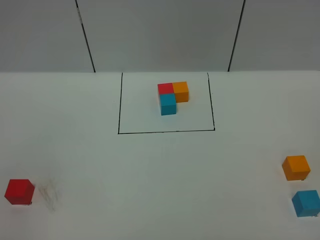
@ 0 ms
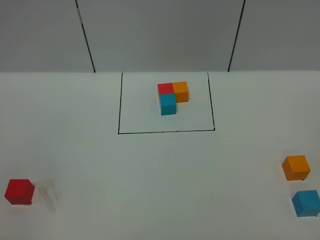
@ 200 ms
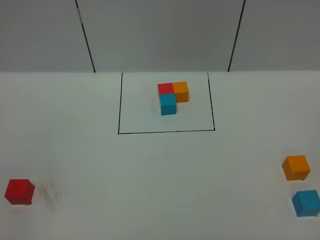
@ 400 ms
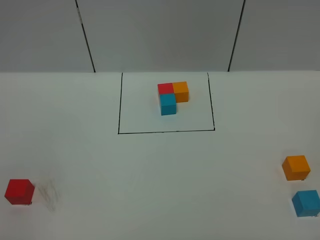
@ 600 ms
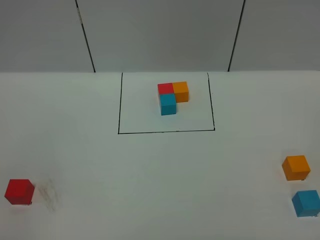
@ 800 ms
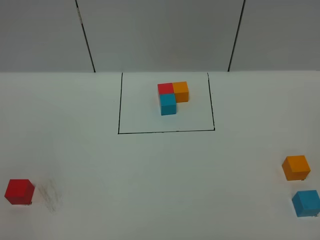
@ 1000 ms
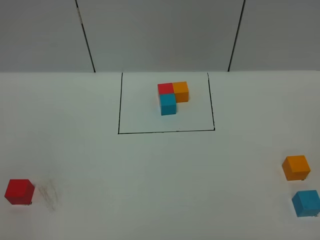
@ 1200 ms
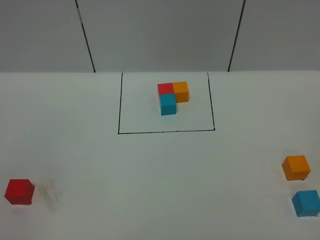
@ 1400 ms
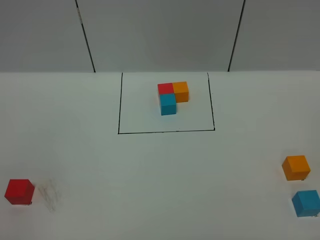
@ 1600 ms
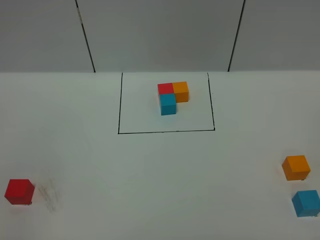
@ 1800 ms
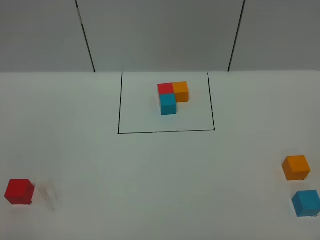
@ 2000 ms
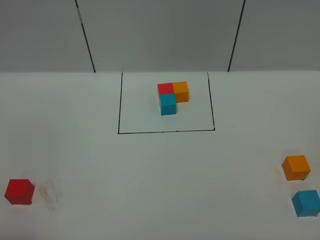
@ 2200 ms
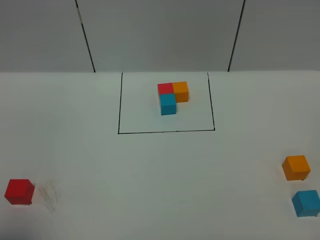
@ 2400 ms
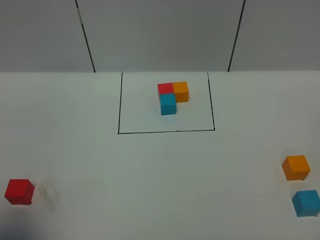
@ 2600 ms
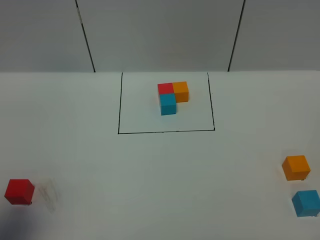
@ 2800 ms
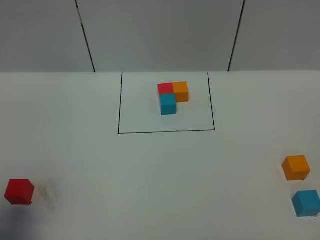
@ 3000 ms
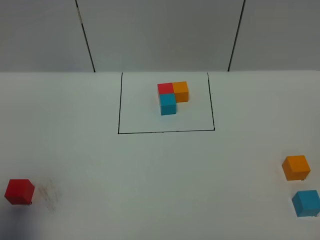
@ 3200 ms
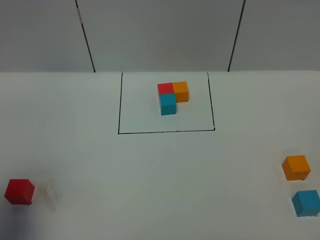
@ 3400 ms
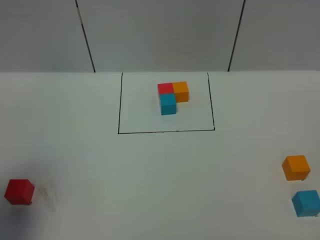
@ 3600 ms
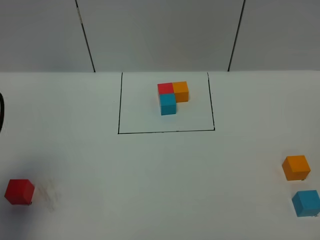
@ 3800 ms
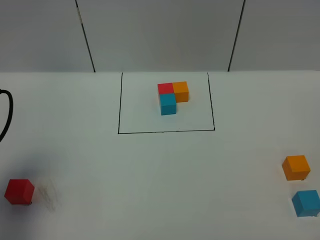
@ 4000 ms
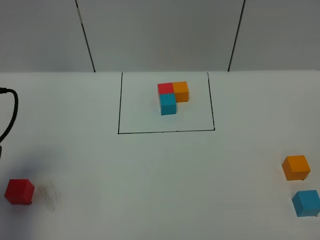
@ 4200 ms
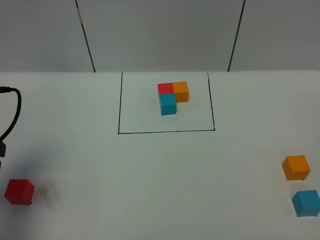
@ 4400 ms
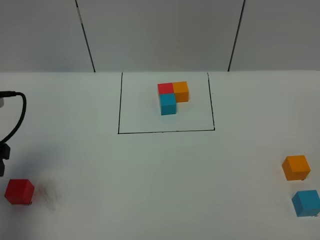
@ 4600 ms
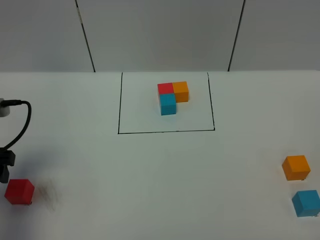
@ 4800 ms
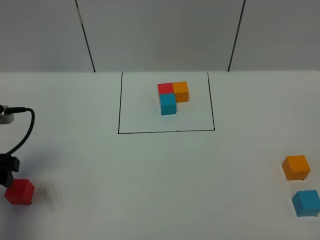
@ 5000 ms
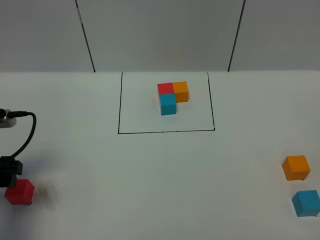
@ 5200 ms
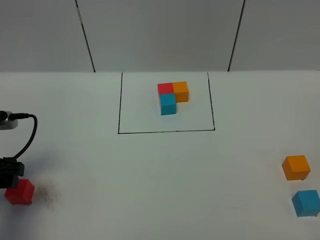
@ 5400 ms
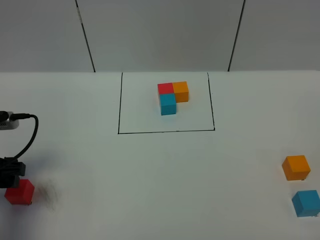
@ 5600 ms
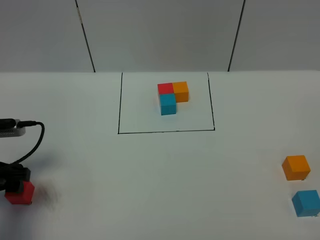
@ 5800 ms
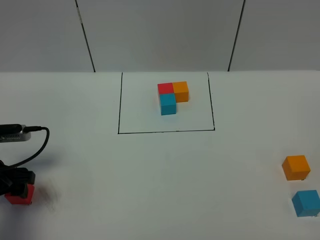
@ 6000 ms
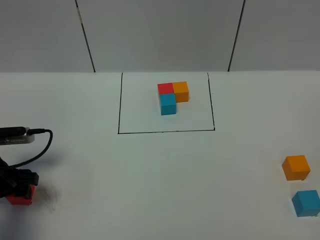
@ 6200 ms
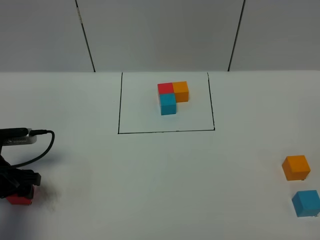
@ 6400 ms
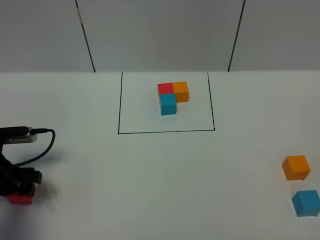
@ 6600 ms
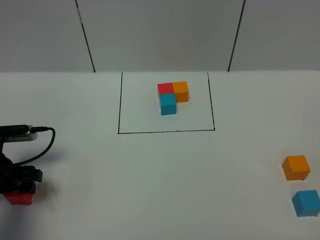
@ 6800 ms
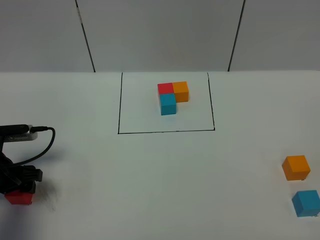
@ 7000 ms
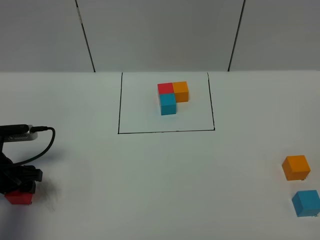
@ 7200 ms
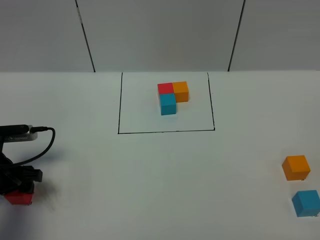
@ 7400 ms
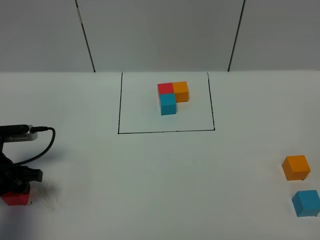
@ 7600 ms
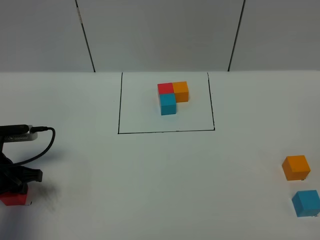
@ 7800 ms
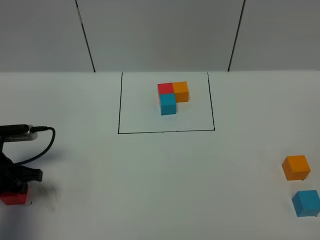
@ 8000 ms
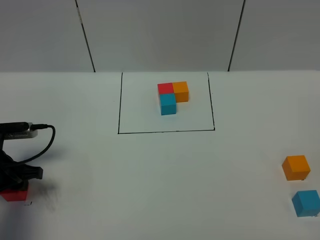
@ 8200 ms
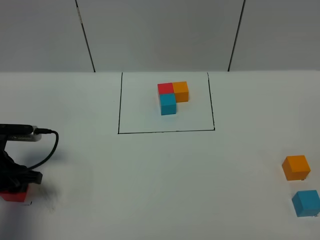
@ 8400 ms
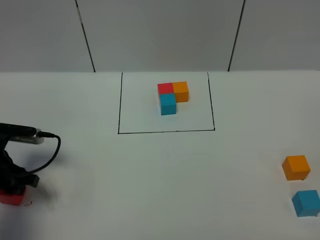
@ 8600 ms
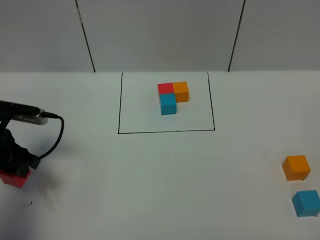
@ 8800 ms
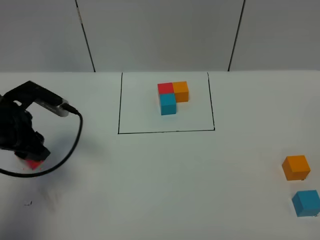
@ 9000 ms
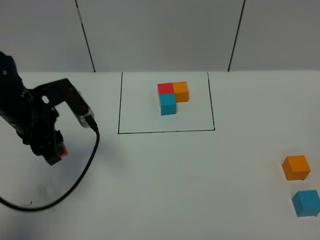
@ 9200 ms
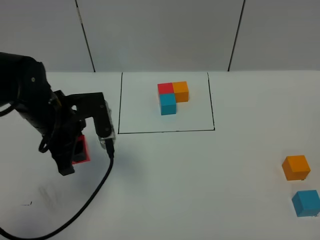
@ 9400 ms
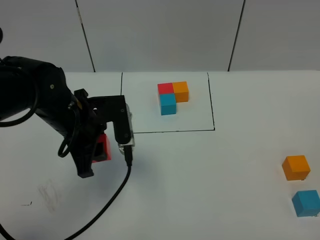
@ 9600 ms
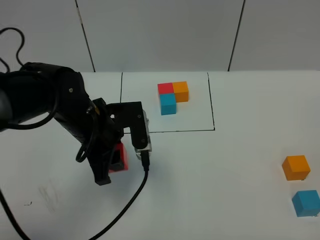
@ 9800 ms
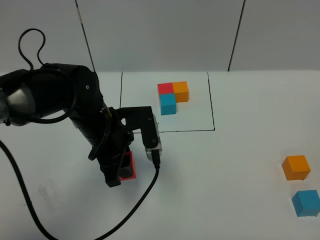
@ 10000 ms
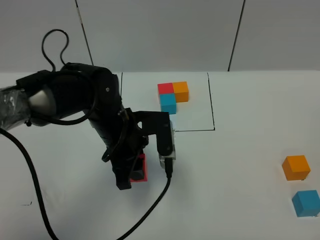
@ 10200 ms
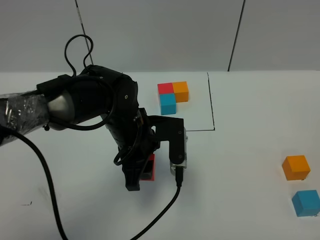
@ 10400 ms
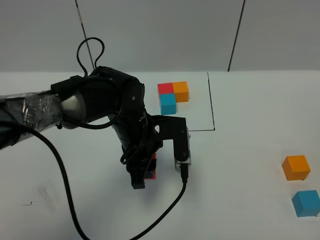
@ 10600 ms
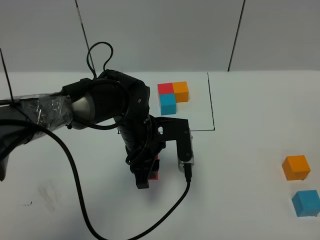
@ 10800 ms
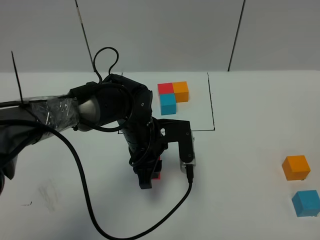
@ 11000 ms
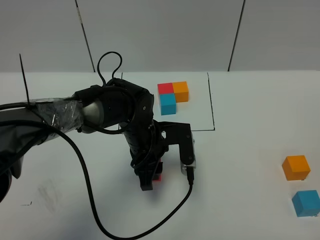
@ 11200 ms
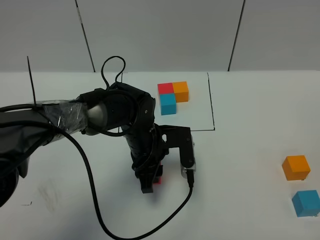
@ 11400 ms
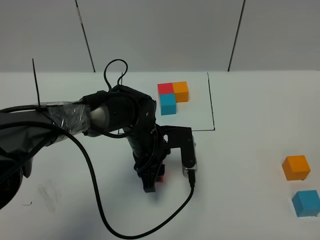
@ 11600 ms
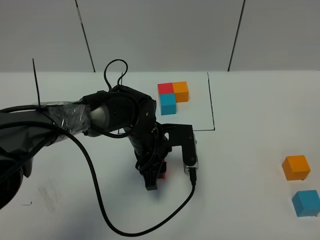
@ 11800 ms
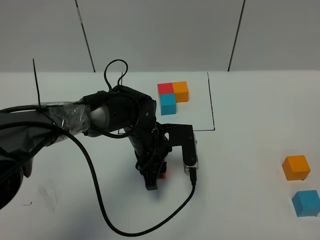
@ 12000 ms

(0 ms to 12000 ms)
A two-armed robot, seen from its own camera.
Task of the whole recording: According to the building block template in front, assemble the scattered blocks together.
0 ms - 1600 ms: Both grippers stay put.
1600 ms - 3000 ms: The left gripper travels forward and upward by approximately 15 cm, and closes.
3000 ms - 4400 ms: The left gripper moves forward and downward, about 15 cm, and opens its fingers.
4400 ms - 6000 ms: The left gripper travels downward by about 10 cm.
6000 ms - 7600 ms: The left gripper closes.
7600 ms - 9000 ms: The left gripper heads upward and forward, covering roughly 10 cm.
9000 ms - 10400 ms: The left gripper travels to the right by roughly 20 cm.
10400 ms - 12000 ms: The left gripper shifts some 5 cm downward.

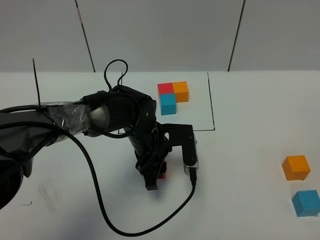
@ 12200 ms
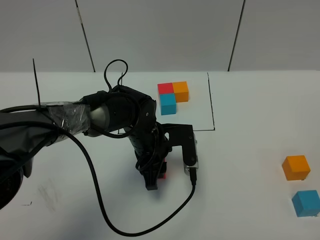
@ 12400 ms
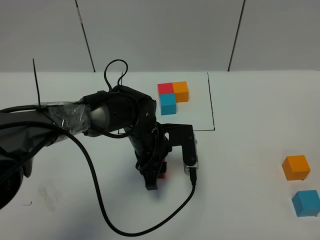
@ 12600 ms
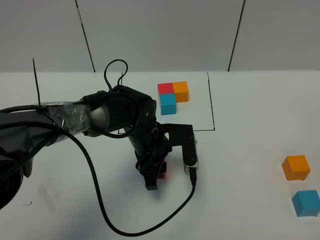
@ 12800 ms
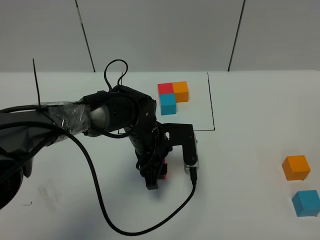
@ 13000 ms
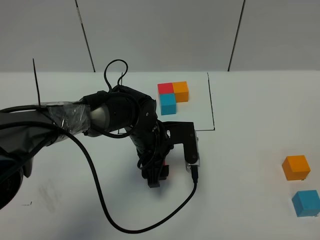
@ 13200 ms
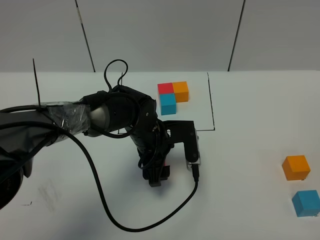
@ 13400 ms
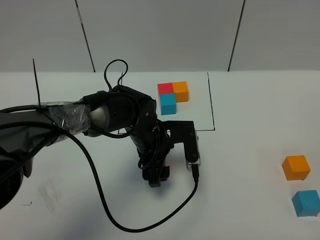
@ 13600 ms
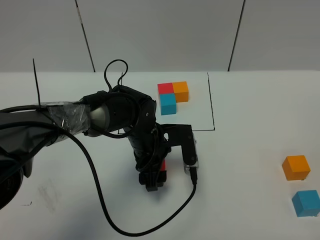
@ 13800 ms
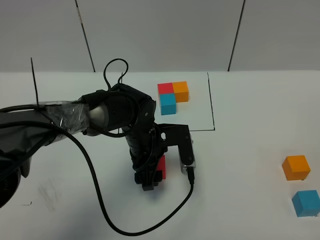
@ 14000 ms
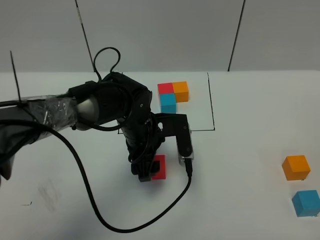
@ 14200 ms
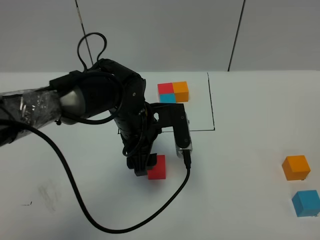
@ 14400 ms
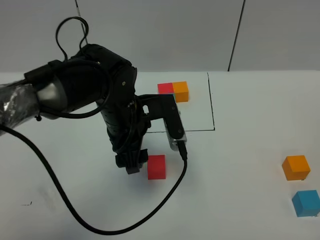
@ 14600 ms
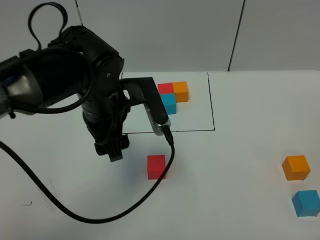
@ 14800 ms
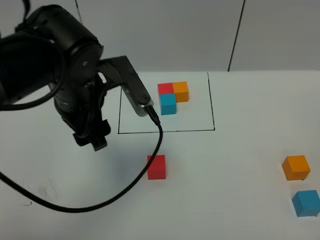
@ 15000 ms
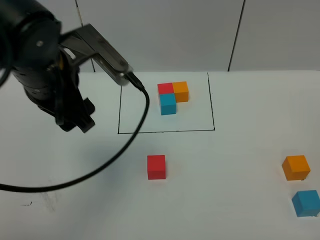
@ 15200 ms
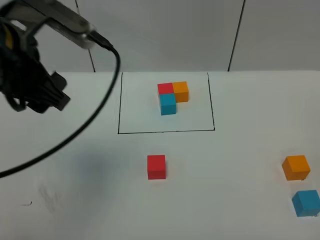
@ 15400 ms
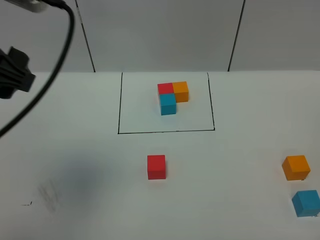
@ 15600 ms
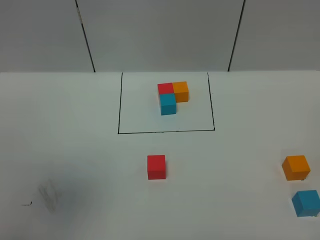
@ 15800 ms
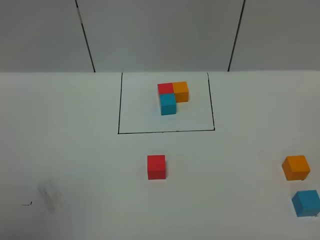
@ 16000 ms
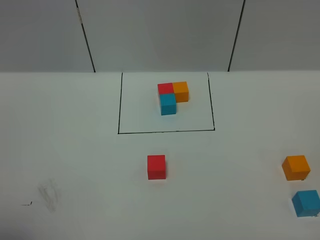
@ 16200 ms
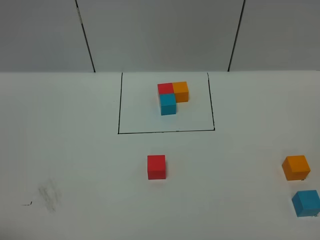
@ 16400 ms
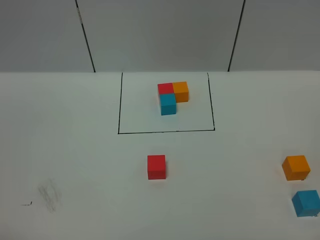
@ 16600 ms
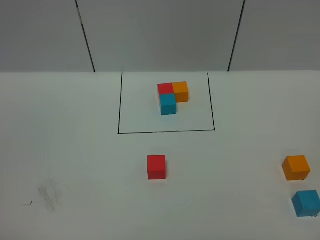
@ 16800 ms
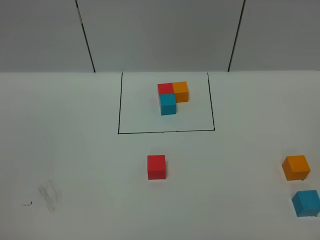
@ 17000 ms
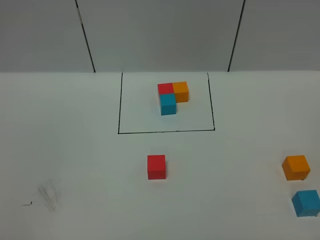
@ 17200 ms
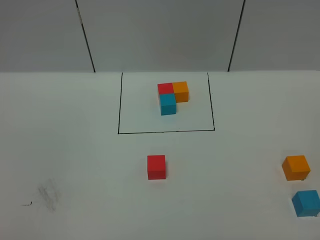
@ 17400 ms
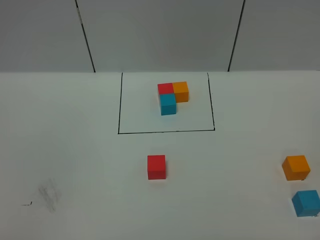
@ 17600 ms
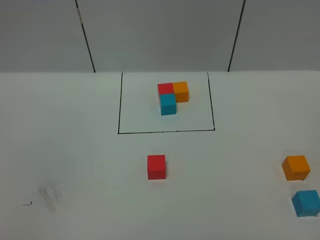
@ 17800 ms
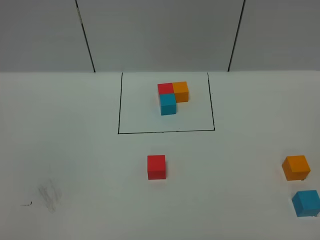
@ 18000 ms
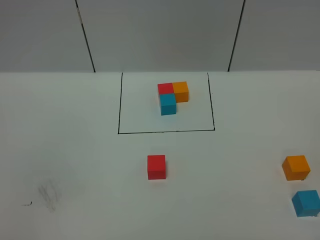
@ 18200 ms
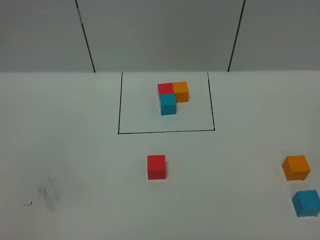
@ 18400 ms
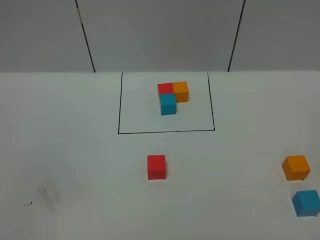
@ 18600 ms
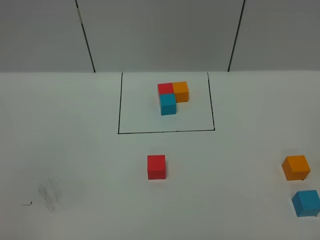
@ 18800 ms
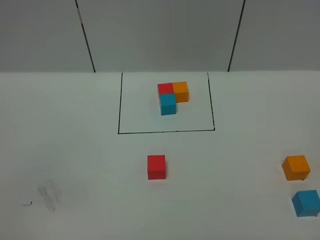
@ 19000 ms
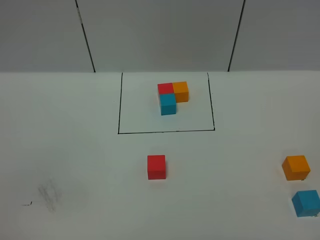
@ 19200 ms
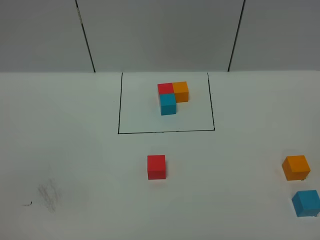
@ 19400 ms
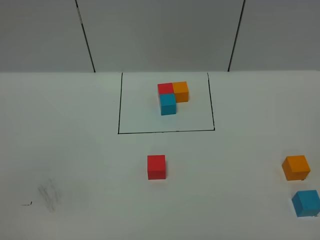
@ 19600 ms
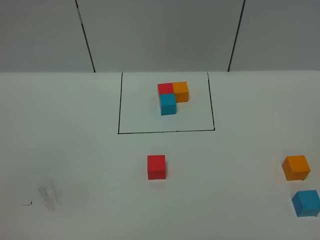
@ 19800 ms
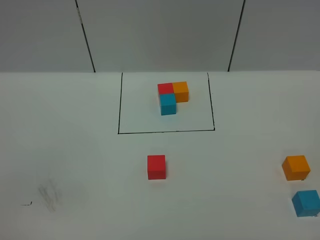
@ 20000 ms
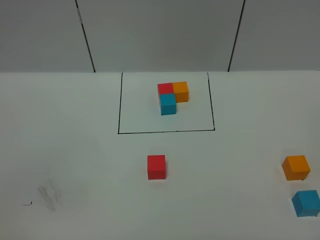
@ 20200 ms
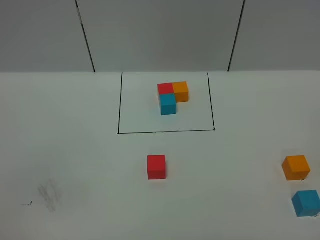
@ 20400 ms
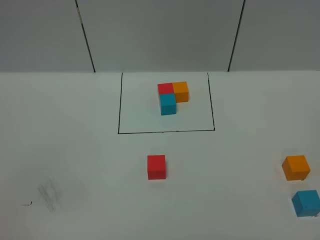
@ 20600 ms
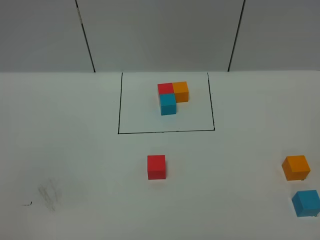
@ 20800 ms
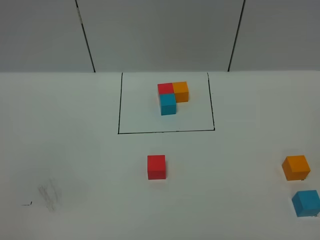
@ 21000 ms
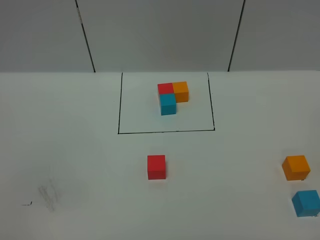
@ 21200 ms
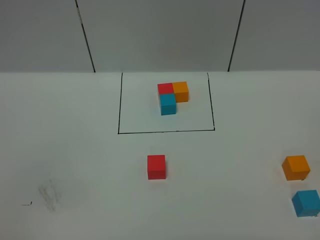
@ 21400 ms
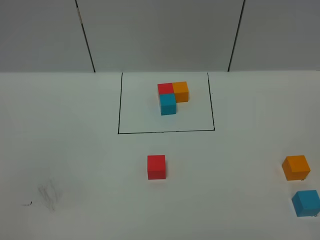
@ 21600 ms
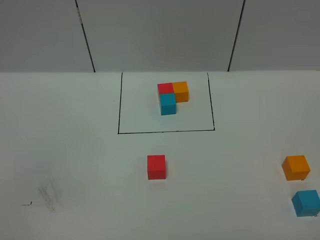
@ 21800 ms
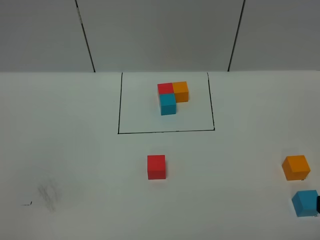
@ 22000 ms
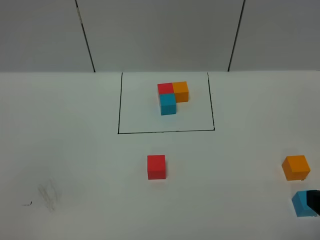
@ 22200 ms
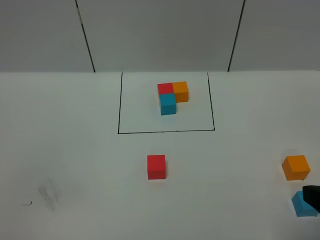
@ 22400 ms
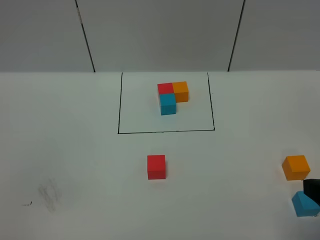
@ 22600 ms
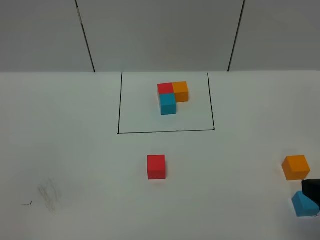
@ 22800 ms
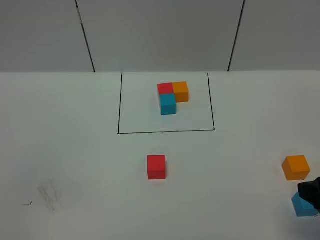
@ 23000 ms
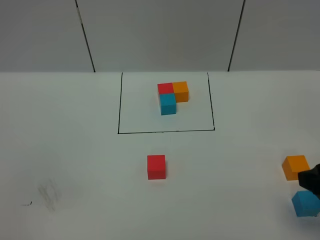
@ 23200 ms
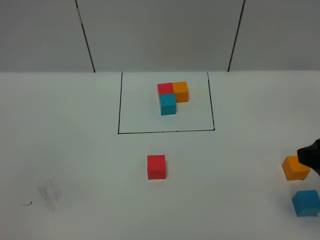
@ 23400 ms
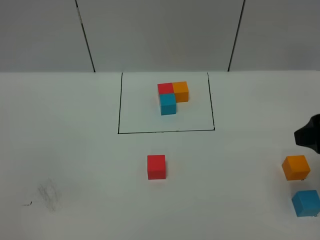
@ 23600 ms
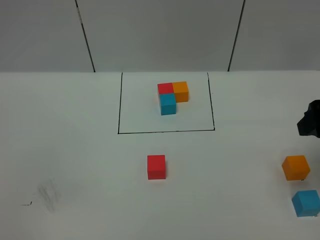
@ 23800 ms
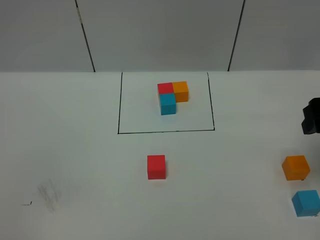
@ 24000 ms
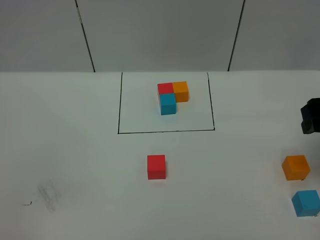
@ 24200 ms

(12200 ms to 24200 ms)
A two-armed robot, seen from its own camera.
Task of the whole recording: According to the building block template in front, assemble the scattered blocks together.
Step, 12200 ms - 15000 ms: Put the red cube in the center of the table.
12200 ms - 13800 ms: The left gripper opens.
13800 ms - 15200 ms: The left gripper heads upward and to the left, covering some 25 cm.
15200 ms - 16600 ms: The left gripper heads backward and to the left, covering approximately 40 cm.
21200 ms - 22600 ms: The right gripper goes roughly 10 cm forward.
22600 ms - 24200 ms: The right gripper shifts roughly 15 cm forward.
